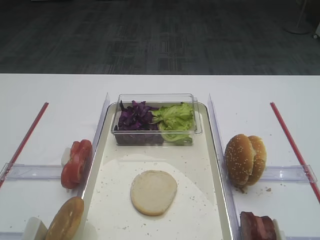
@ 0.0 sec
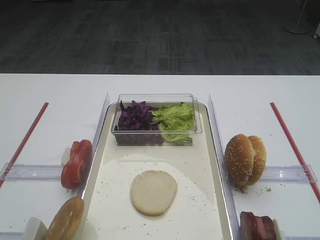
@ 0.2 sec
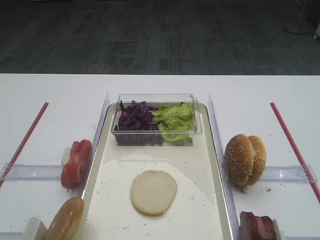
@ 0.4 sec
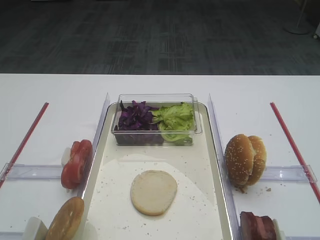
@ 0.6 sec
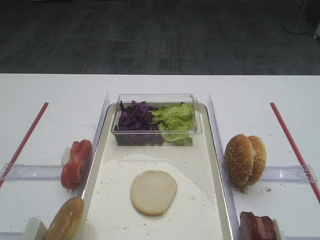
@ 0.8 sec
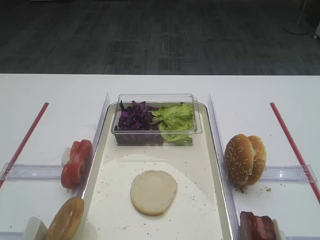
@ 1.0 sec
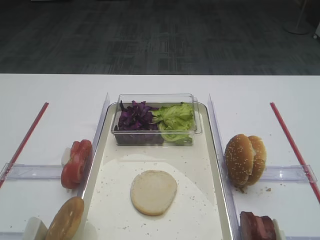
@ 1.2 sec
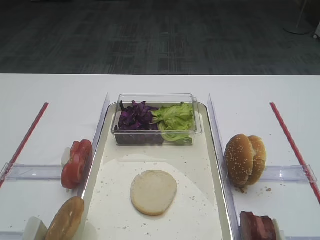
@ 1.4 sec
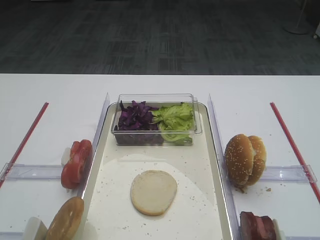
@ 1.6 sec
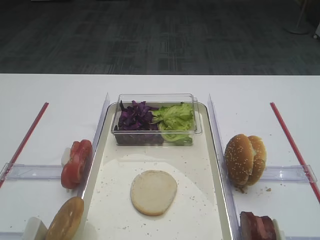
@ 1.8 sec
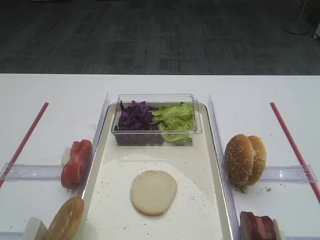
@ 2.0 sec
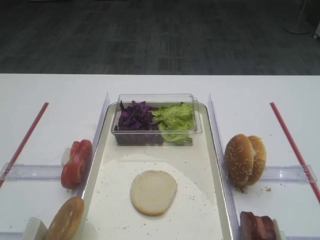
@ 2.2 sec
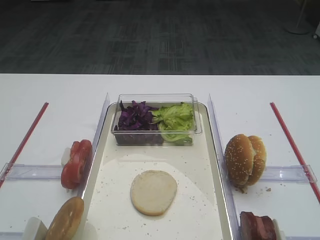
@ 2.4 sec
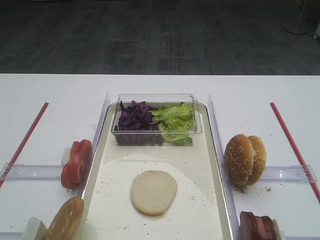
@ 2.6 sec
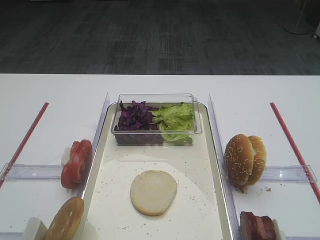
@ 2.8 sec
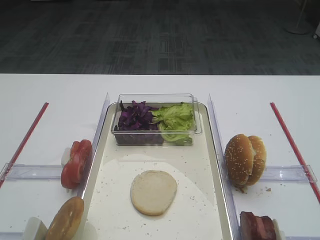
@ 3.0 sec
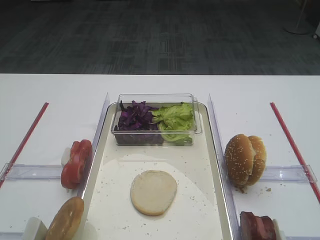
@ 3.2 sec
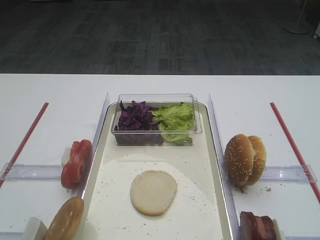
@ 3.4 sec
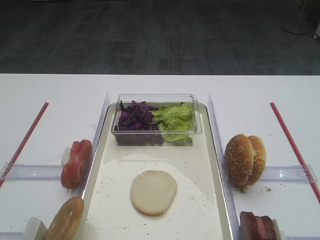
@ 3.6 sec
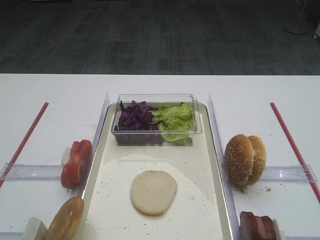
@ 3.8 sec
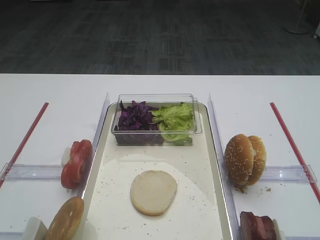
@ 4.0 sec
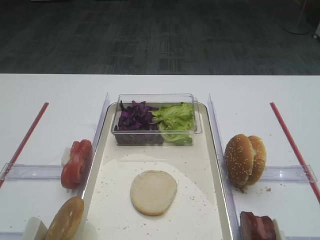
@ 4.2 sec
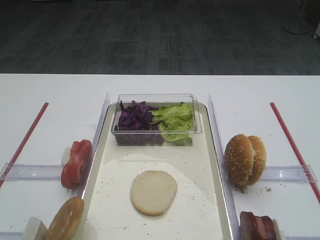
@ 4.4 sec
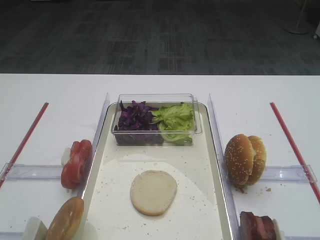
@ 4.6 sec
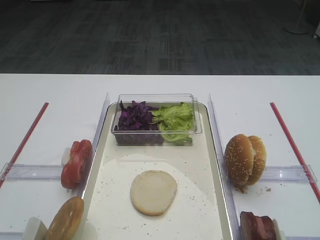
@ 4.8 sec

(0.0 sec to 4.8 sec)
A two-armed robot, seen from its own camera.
3.2 sec - 4.8 sec: Both grippers stay put.

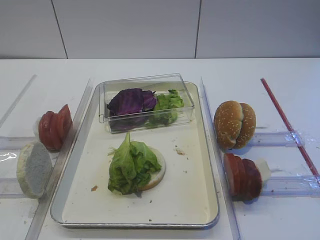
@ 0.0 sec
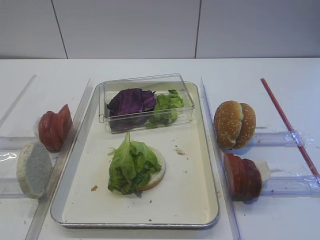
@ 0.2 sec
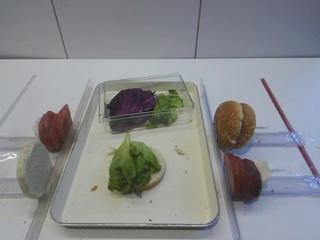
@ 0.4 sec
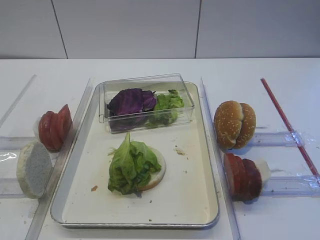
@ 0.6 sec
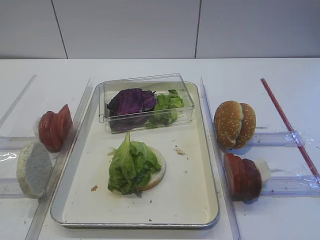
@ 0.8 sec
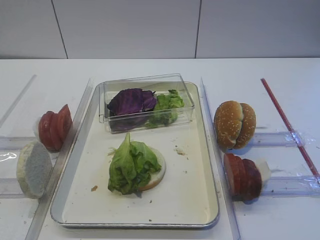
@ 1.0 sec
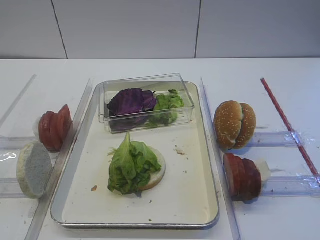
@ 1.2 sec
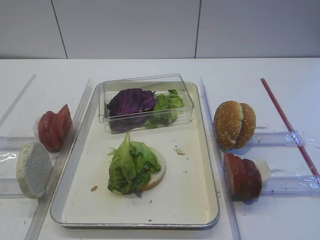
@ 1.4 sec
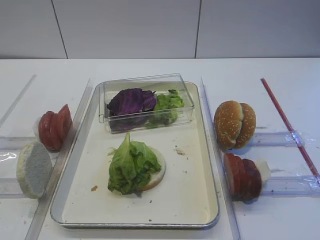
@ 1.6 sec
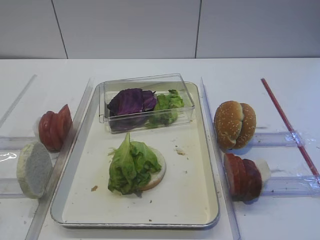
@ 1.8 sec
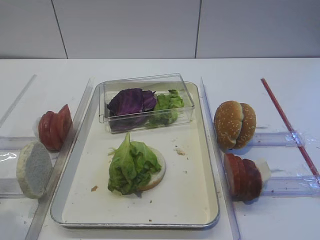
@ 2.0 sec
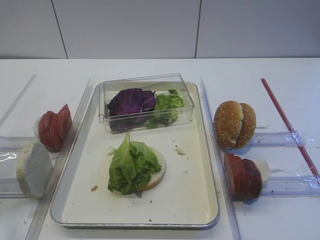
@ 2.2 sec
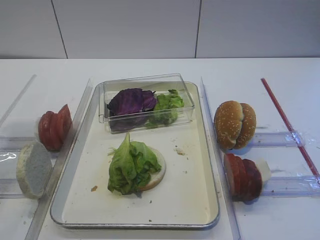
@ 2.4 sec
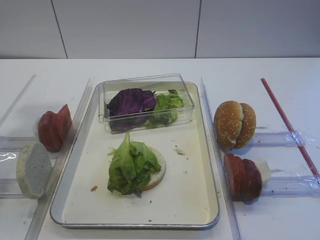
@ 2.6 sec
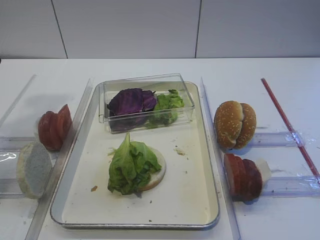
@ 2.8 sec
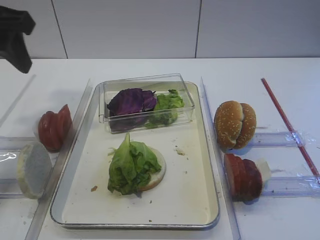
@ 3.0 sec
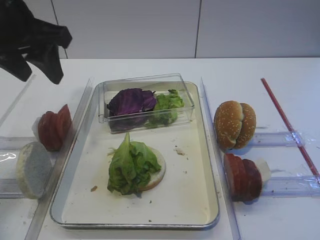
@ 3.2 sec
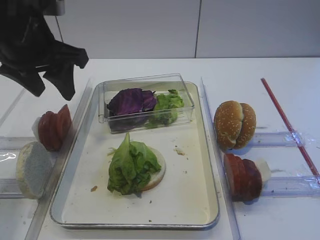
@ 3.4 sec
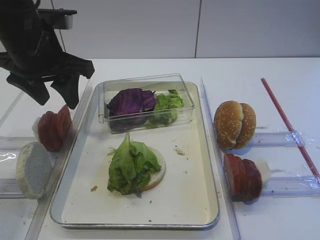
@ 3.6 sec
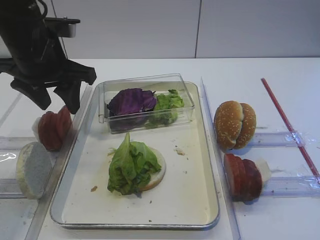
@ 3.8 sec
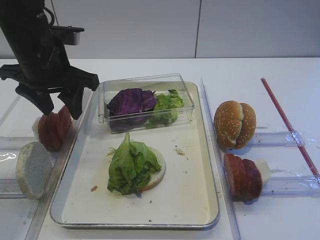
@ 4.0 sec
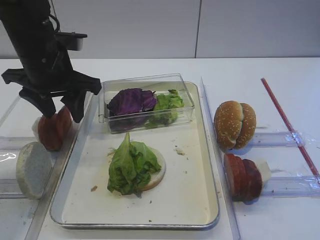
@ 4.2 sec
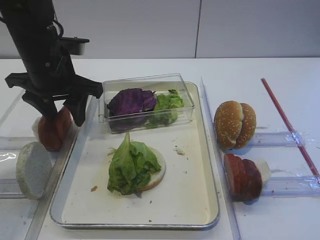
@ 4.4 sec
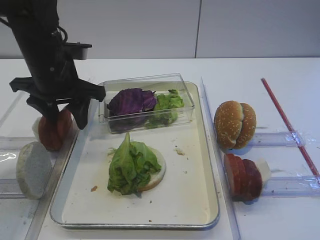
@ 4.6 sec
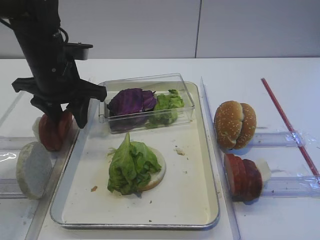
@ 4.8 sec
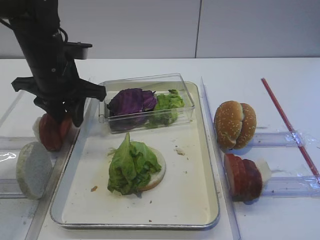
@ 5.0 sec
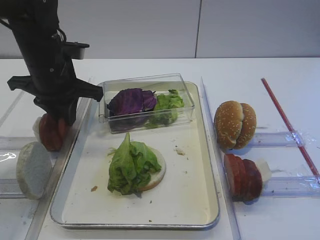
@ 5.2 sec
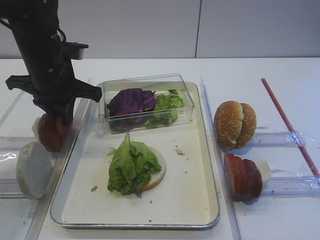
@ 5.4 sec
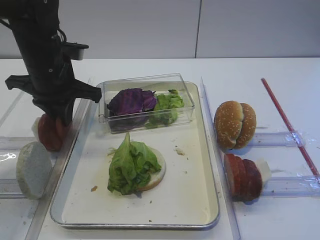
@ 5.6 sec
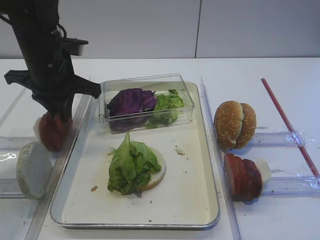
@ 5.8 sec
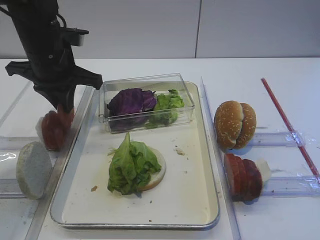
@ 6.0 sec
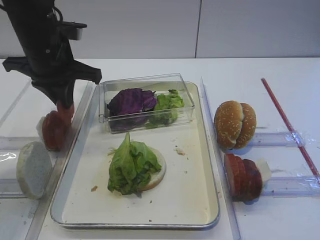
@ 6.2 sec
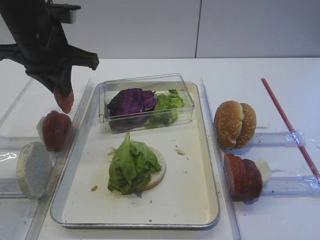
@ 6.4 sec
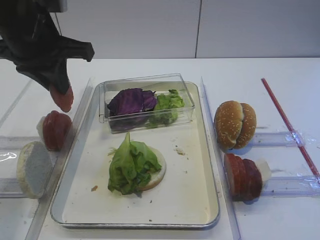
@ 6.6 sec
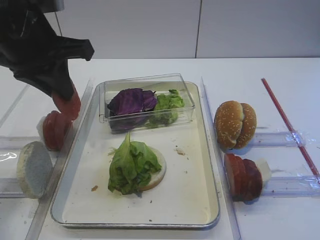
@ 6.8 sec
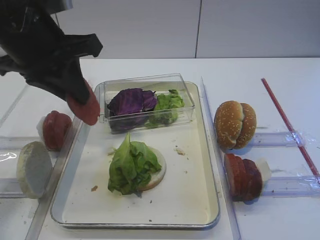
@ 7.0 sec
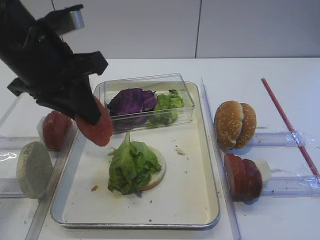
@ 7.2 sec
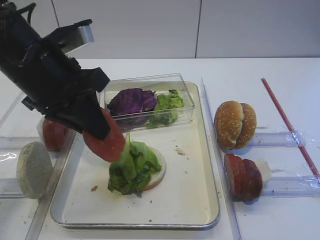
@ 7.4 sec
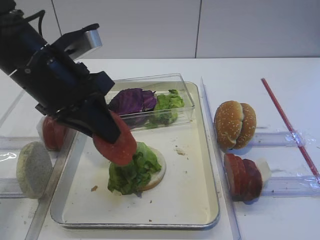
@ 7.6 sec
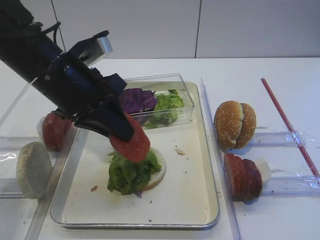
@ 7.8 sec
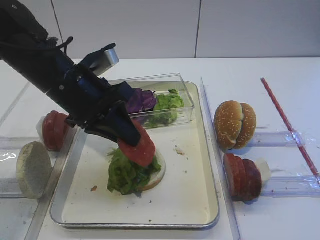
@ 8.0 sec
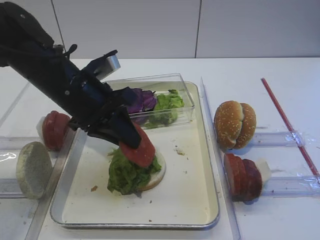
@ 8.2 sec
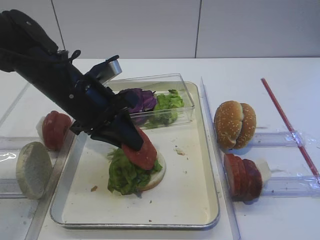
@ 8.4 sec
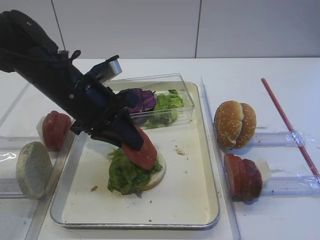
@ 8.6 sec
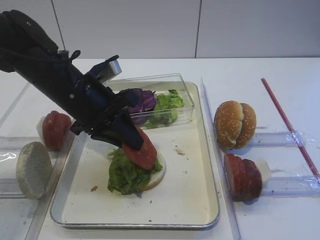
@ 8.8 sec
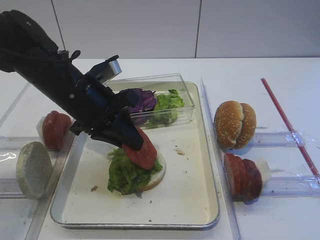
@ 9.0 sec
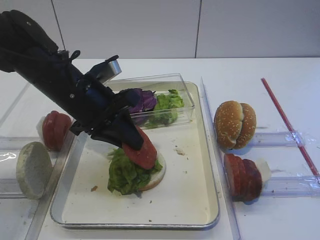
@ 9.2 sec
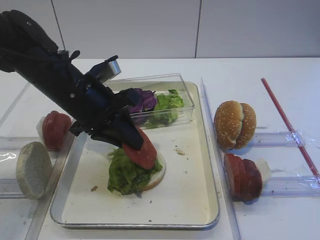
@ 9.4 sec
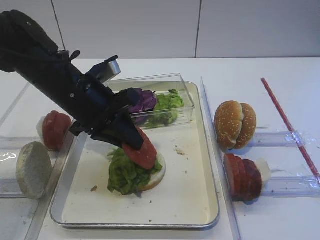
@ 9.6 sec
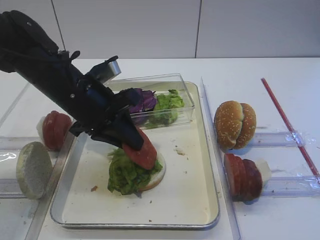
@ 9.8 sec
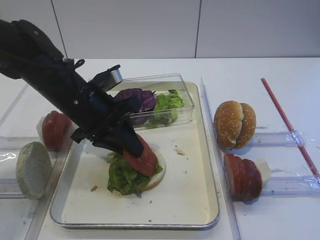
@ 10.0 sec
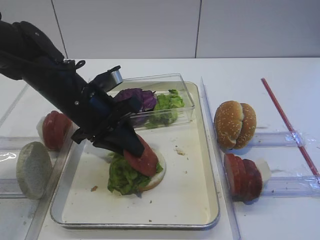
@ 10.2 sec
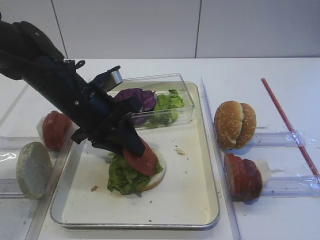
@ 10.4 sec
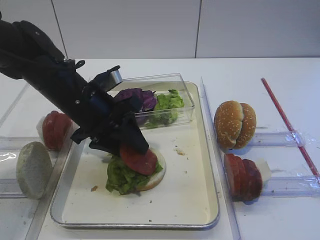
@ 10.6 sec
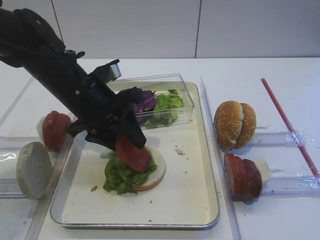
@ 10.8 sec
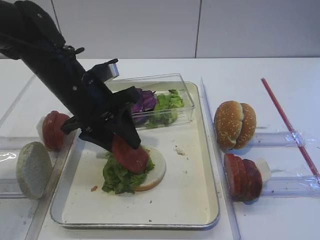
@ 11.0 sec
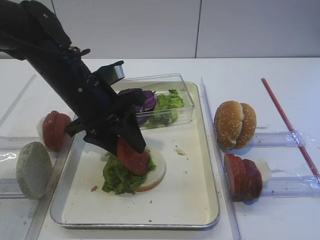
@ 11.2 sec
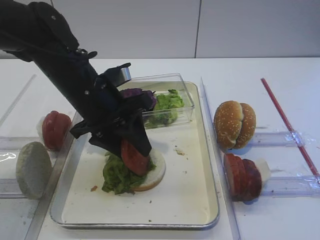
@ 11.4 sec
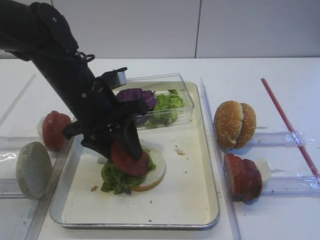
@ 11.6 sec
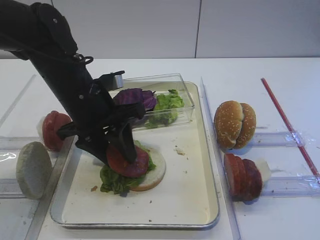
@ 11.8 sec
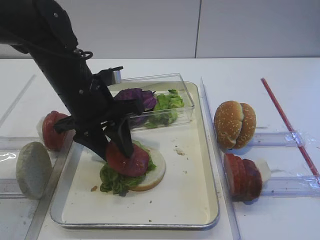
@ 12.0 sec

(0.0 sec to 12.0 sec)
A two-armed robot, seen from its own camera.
Step, 0.0 sec - 6.2 sec: Pick up the tomato slice with the left gripper.
1.6 sec - 3.0 sec: The left gripper heads forward, covering some 25 cm, and opens up.
3.0 sec - 4.4 sec: The left gripper shifts some 15 cm downward, forward and to the right.
4.4 sec - 6.0 sec: The left gripper closes up.
6.0 sec - 7.6 sec: The left gripper is displaced backward by roughly 10 cm.
7.6 sec - 9.0 sec: The left gripper is displaced downward by approximately 5 cm.
9.0 sec - 10.4 sec: The grippers make only small movements.
10.4 sec - 12.0 sec: The left gripper opens up.

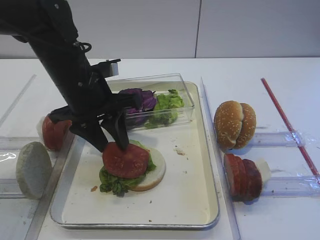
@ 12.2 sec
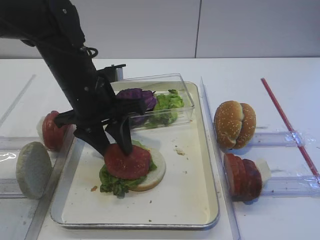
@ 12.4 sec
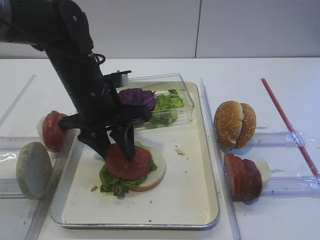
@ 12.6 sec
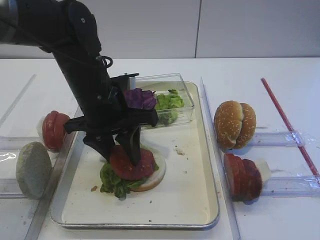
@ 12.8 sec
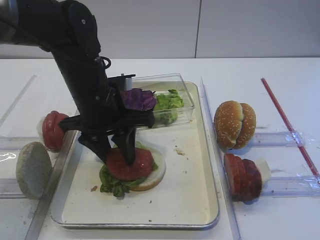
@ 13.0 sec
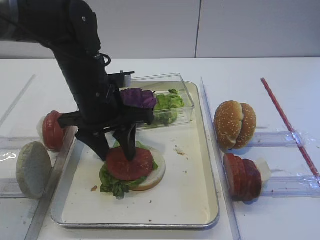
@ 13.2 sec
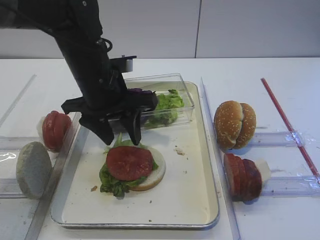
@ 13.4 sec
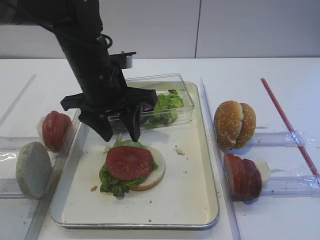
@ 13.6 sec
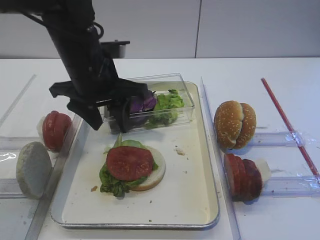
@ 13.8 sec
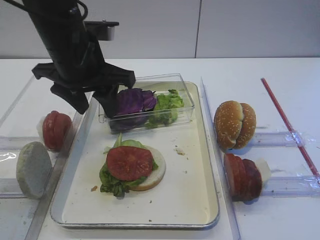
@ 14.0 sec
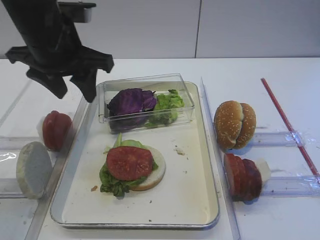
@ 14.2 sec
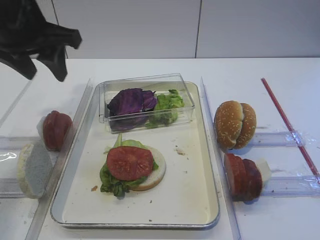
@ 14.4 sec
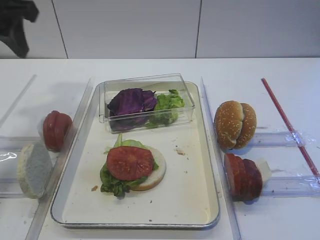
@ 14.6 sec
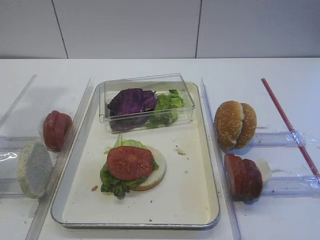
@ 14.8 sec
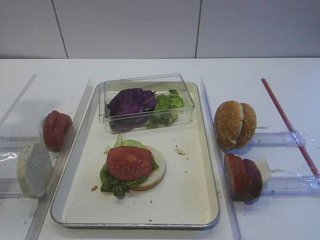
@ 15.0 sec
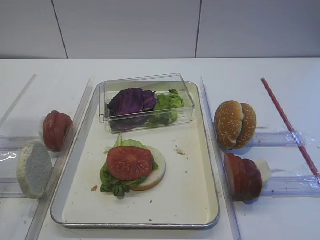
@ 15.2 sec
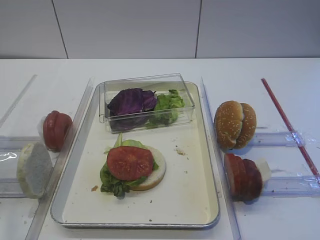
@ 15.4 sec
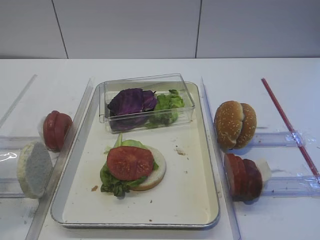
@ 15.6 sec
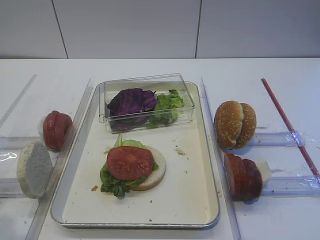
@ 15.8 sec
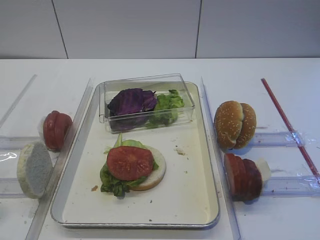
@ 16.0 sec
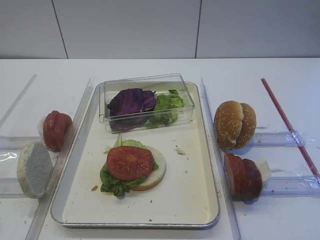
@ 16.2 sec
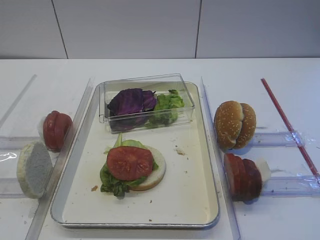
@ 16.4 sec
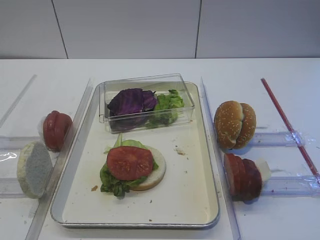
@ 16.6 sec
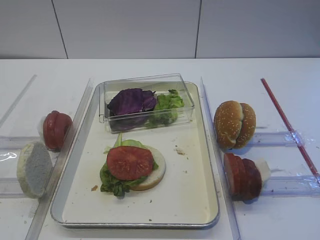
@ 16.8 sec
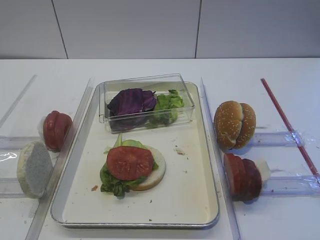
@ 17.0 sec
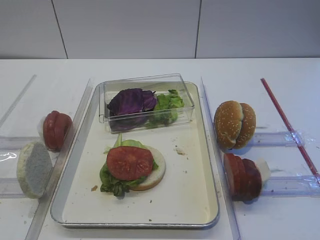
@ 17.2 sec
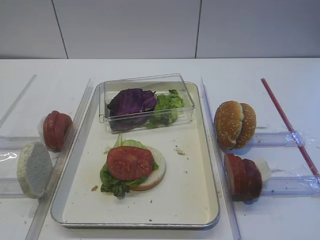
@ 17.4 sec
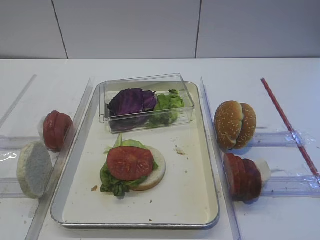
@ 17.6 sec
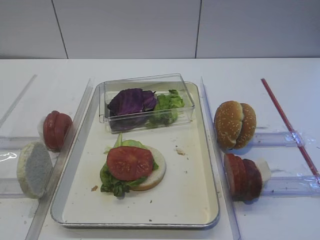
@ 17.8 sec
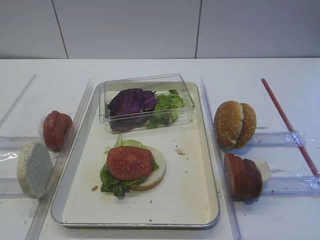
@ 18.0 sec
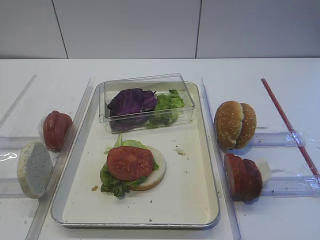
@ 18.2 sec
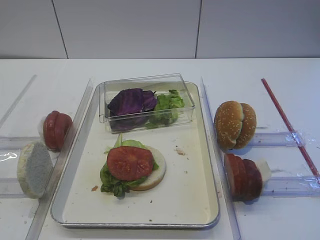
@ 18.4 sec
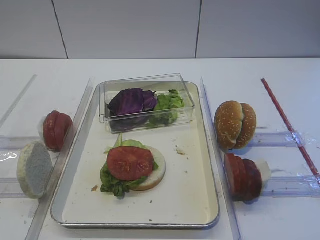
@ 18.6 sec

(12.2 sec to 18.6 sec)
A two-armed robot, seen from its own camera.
12.2 sec - 13.8 sec: The grippers move only a little.
13.8 sec - 15.4 sec: The left gripper moves backward, to the left and upward, roughly 25 cm.
15.4 sec - 17.0 sec: The left gripper is displaced backward and downward by approximately 15 cm.
17.0 sec - 18.6 sec: Both grippers stay about where they are.
